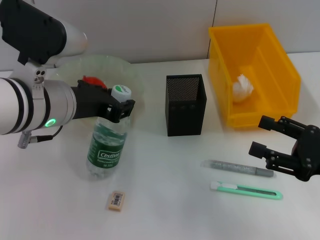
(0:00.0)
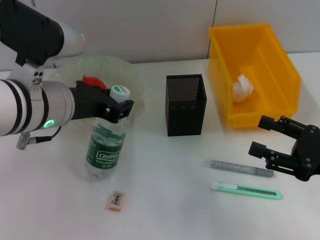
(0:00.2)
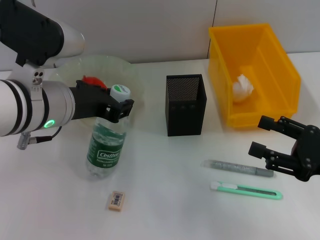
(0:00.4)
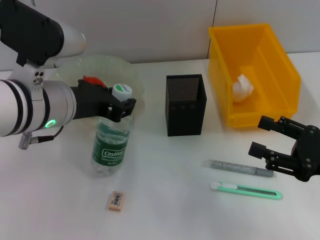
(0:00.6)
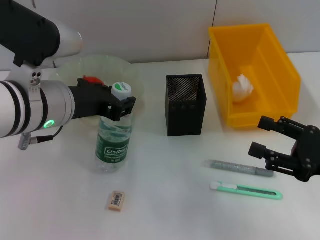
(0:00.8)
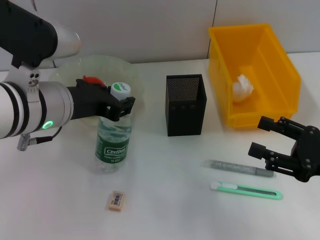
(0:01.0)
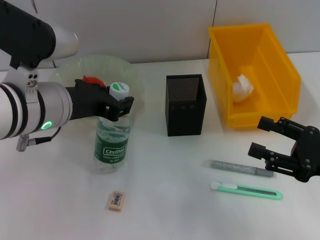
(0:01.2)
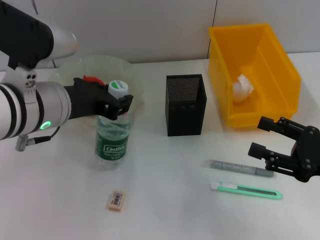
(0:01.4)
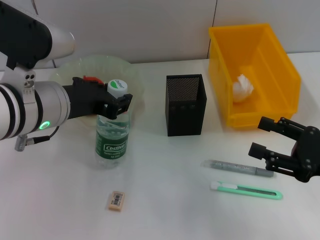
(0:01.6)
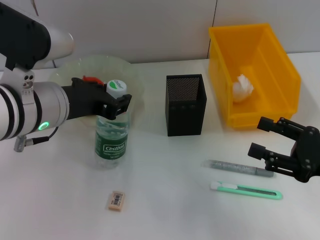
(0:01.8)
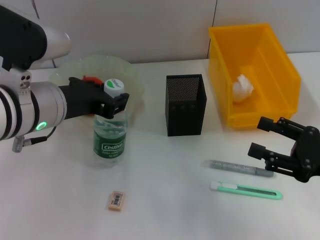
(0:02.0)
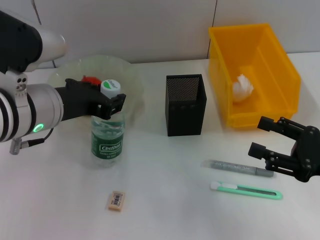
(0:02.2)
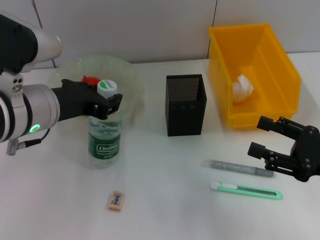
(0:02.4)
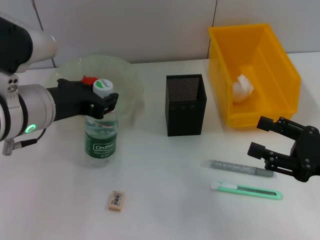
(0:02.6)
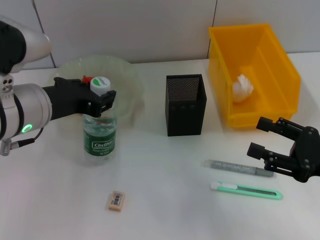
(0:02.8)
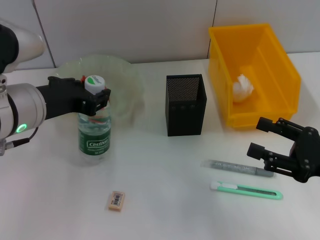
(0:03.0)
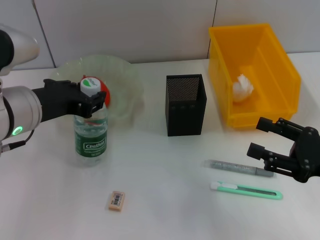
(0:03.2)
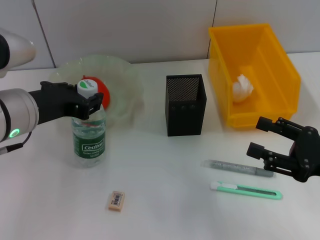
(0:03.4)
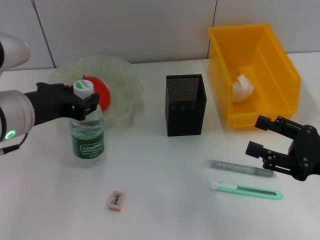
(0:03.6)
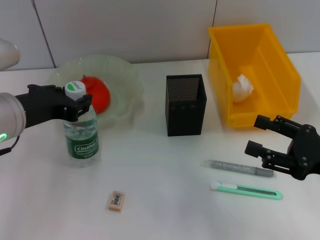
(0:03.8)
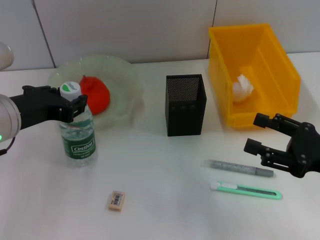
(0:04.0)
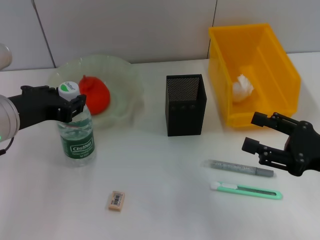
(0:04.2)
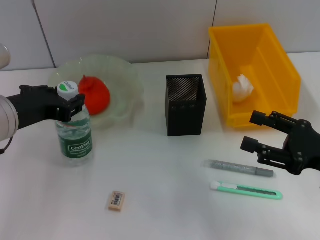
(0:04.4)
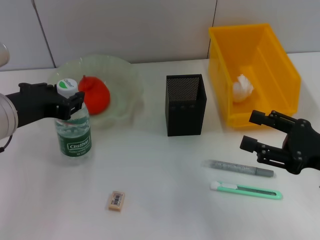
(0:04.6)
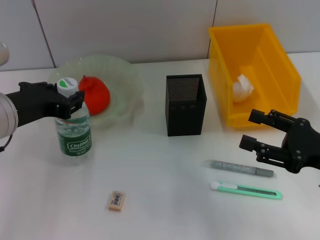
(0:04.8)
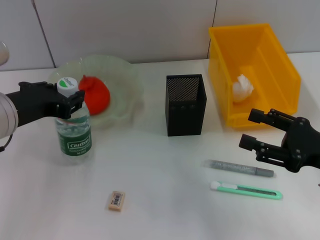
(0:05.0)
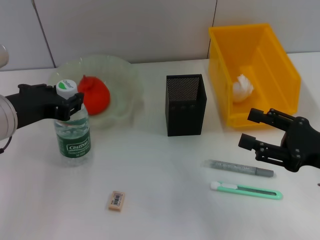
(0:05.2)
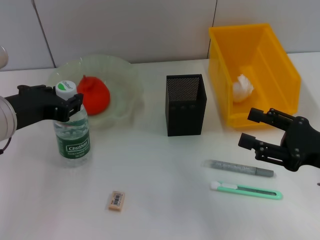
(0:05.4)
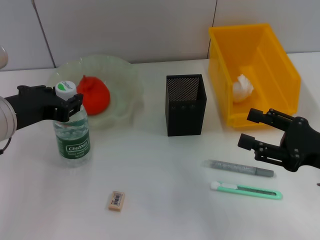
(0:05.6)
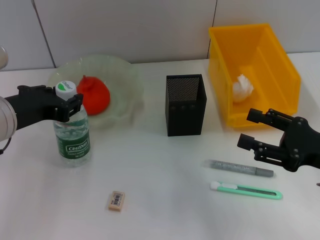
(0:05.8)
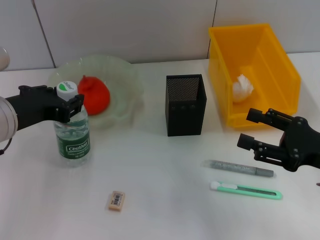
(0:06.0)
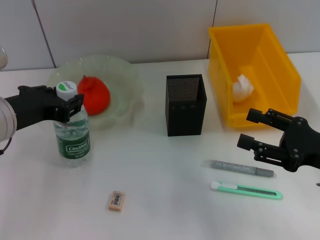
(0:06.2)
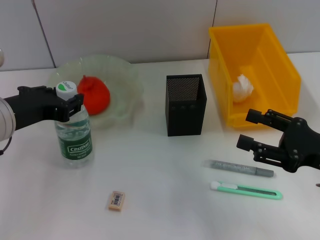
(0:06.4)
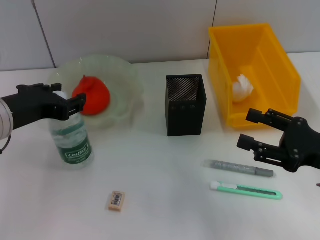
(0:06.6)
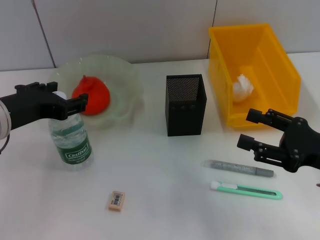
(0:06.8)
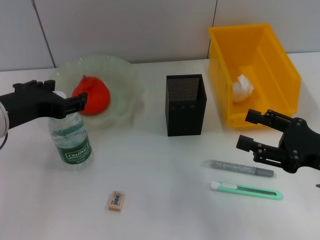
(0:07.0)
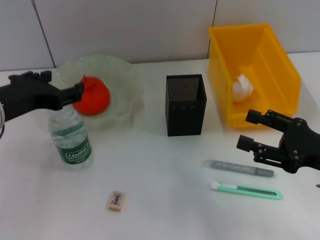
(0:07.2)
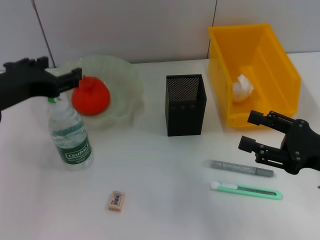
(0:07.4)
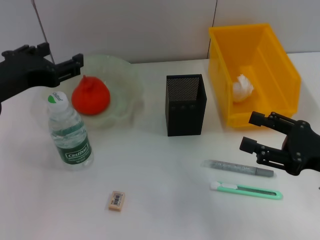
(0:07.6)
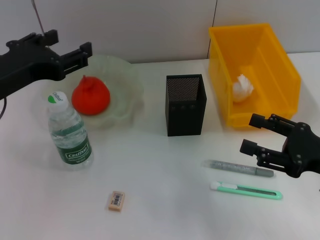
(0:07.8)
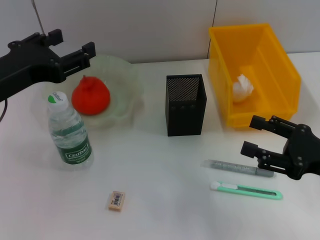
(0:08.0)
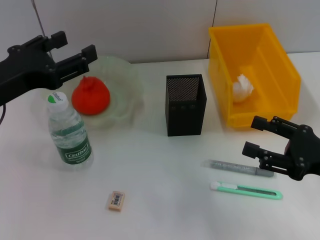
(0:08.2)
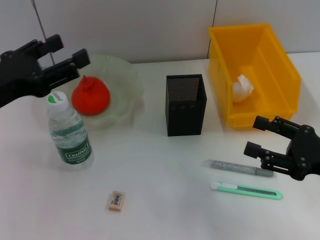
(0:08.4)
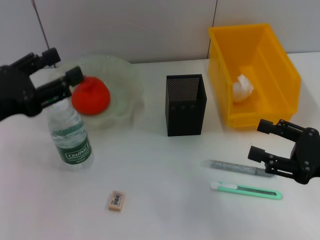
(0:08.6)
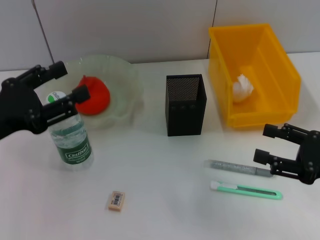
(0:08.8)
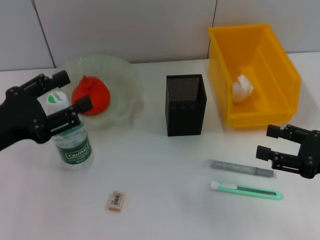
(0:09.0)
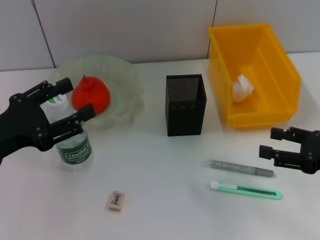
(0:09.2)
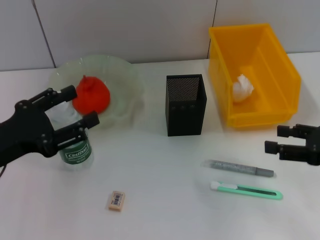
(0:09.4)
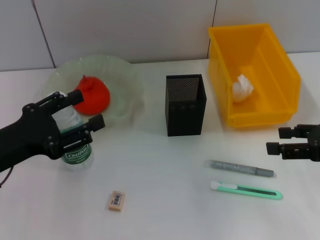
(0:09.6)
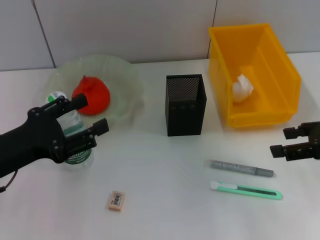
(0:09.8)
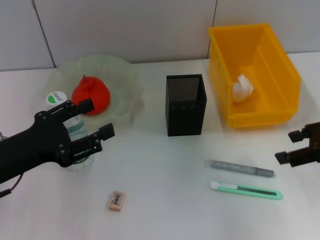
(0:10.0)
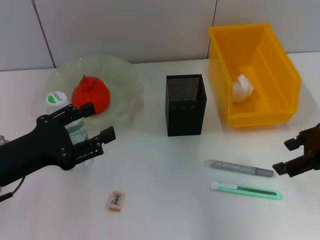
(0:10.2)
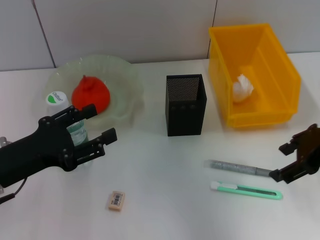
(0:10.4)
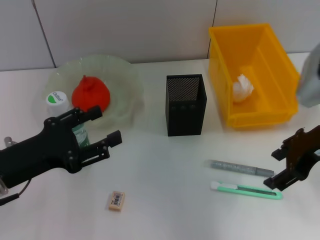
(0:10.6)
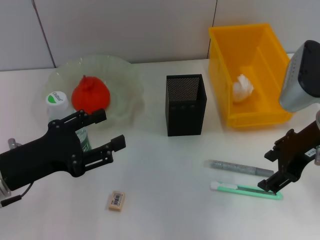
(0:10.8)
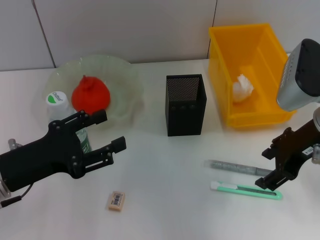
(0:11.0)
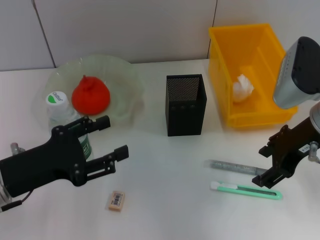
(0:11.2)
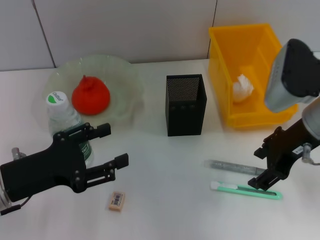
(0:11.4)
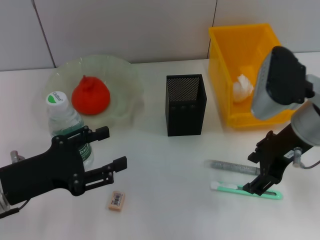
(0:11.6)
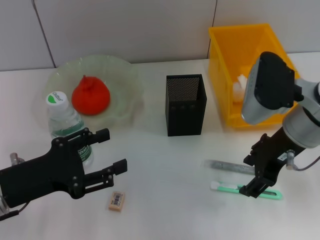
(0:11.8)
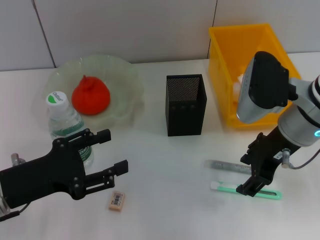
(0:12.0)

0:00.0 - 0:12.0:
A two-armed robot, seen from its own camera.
Step, 0:00.0 - 0:06.8: Place the water bottle on the table with the left hand.
0:00.0 - 0:01.6: Both grippers stay about where they are.
0:01.6 - 0:04.4: The grippers make only small movements.
0:04.4 - 0:06.0: The two grippers keep their place.
0:06.0 - 0:07.6: The left gripper opens its fingers.
0:07.6 - 0:09.0: The left gripper moves downward, some 5 cm.
0:09.0 - 0:10.4: The right gripper shifts some 15 cm upward, forward and to the left.
0:10.4 - 0:12.0: The right gripper travels to the left by approximately 10 cm.

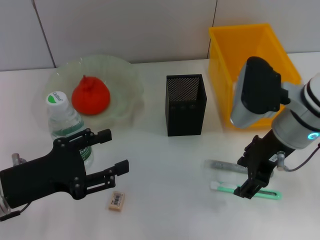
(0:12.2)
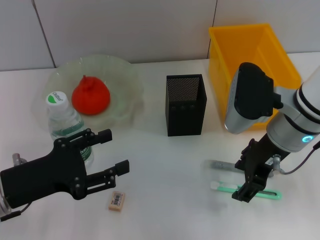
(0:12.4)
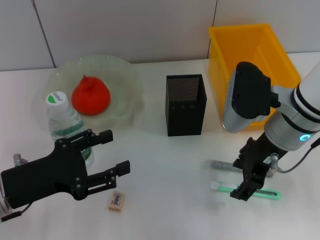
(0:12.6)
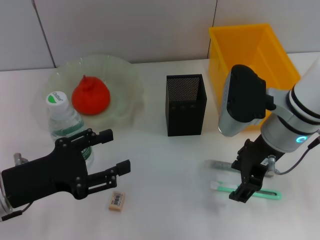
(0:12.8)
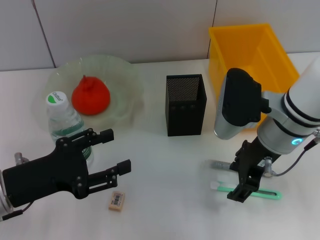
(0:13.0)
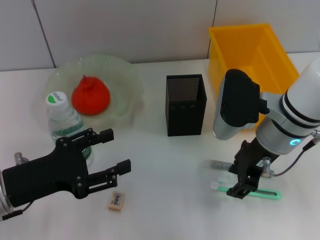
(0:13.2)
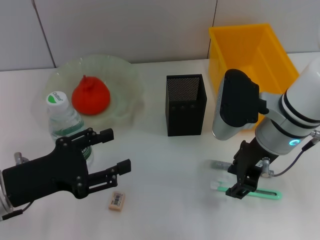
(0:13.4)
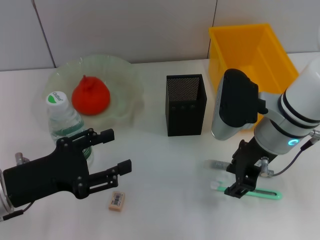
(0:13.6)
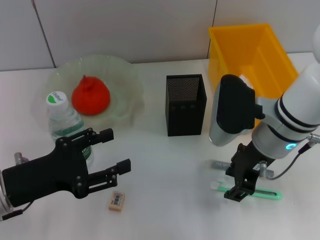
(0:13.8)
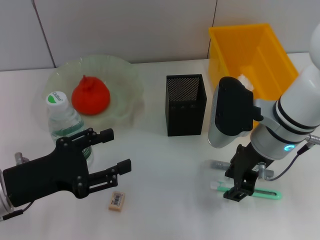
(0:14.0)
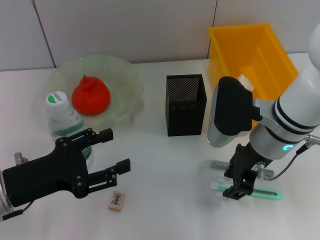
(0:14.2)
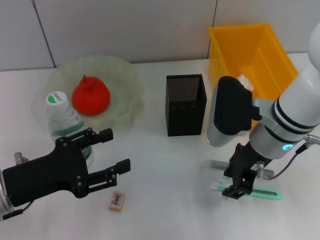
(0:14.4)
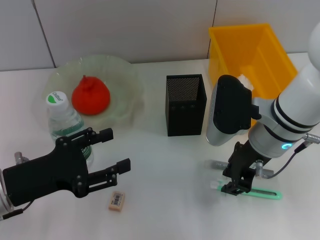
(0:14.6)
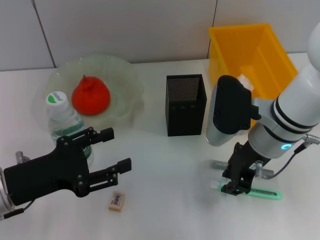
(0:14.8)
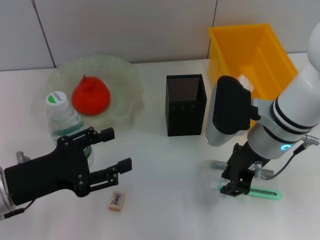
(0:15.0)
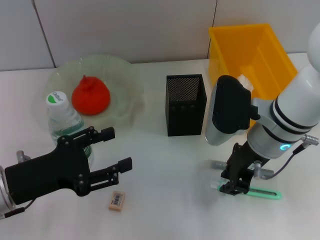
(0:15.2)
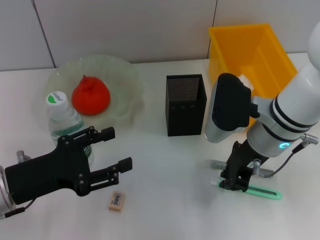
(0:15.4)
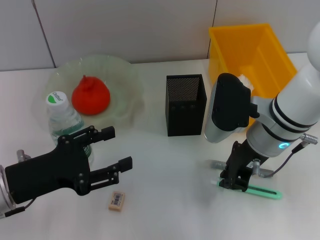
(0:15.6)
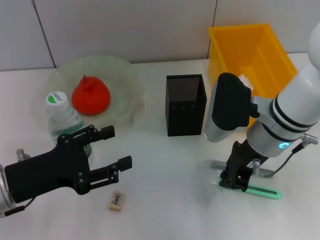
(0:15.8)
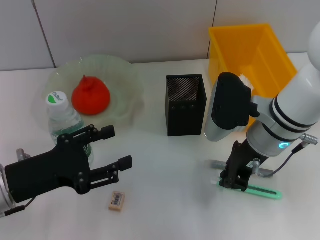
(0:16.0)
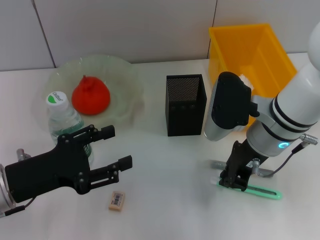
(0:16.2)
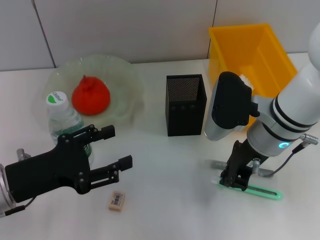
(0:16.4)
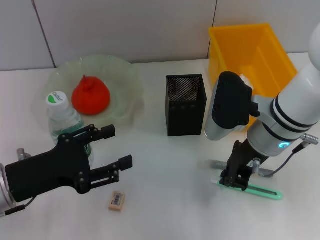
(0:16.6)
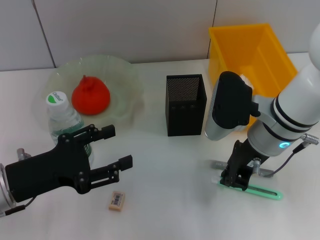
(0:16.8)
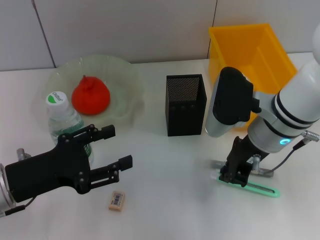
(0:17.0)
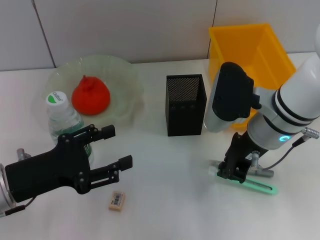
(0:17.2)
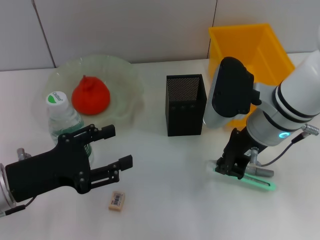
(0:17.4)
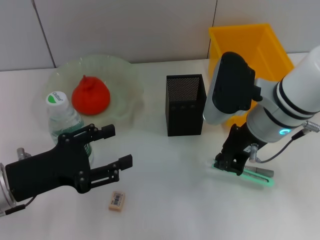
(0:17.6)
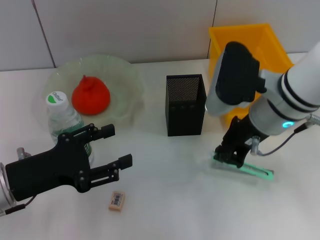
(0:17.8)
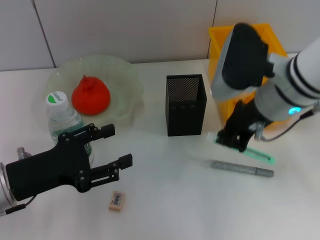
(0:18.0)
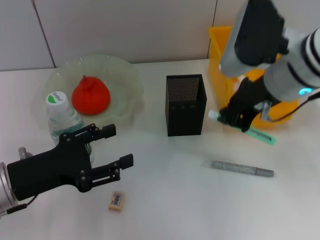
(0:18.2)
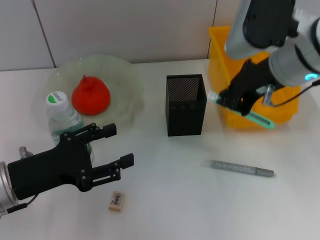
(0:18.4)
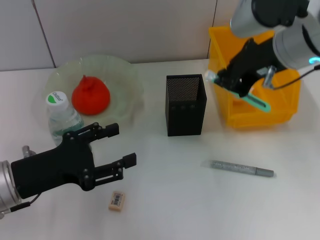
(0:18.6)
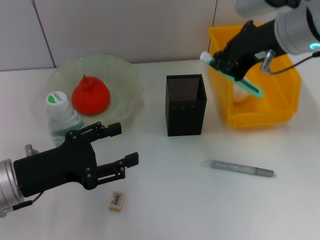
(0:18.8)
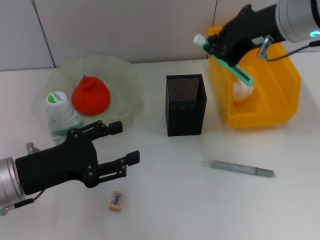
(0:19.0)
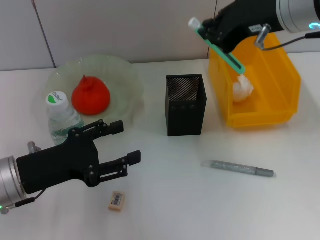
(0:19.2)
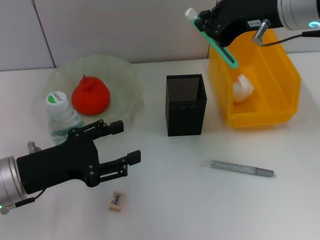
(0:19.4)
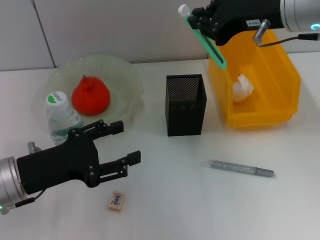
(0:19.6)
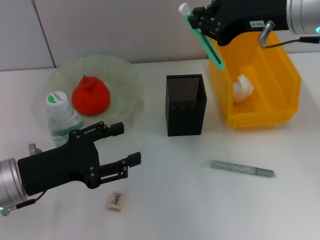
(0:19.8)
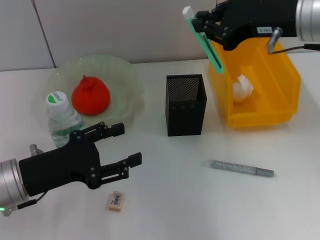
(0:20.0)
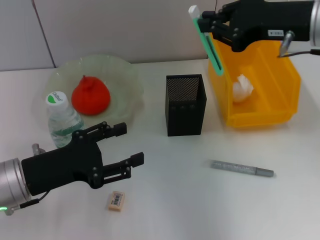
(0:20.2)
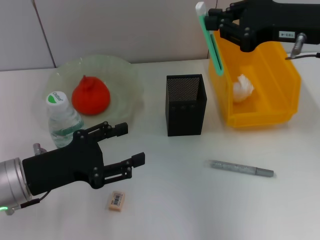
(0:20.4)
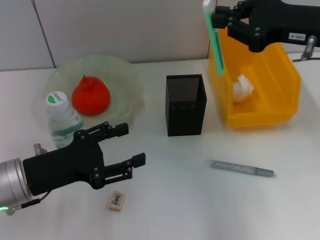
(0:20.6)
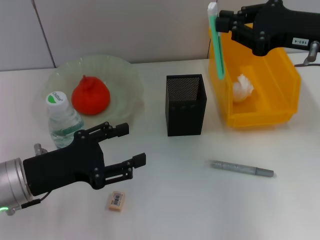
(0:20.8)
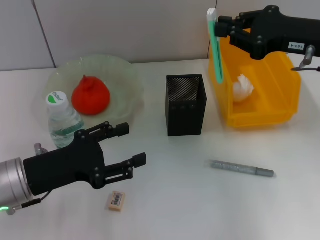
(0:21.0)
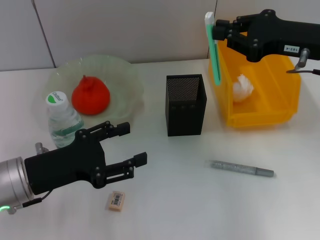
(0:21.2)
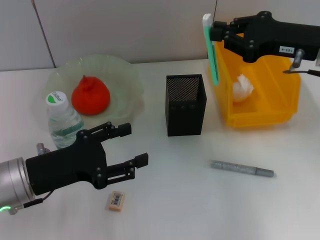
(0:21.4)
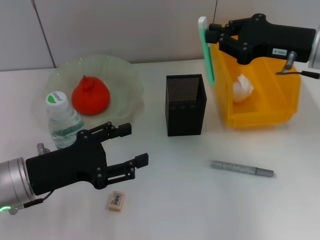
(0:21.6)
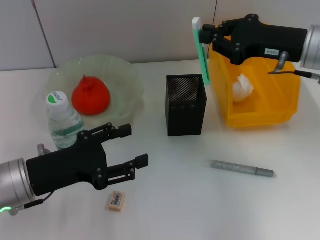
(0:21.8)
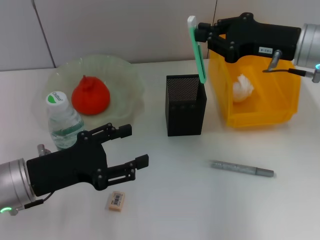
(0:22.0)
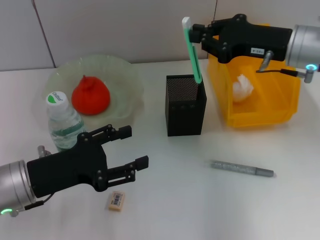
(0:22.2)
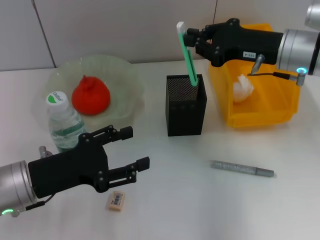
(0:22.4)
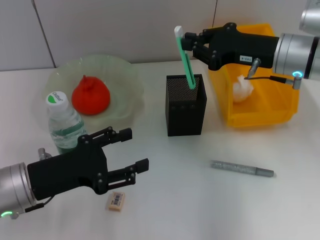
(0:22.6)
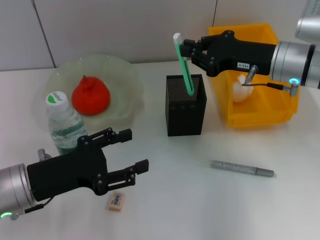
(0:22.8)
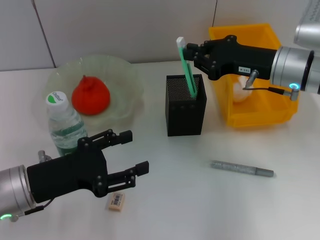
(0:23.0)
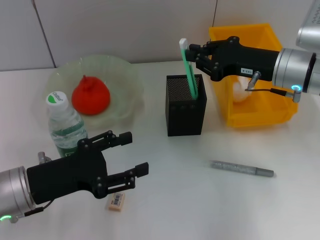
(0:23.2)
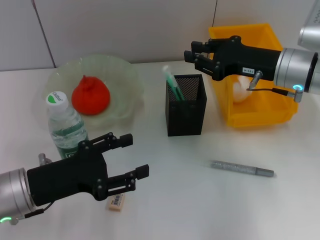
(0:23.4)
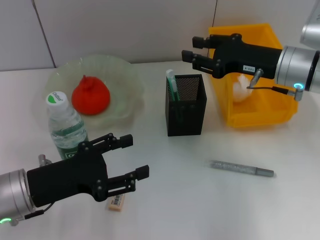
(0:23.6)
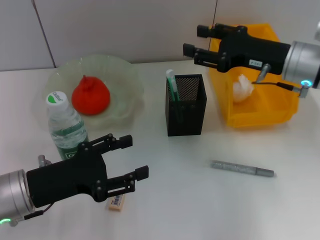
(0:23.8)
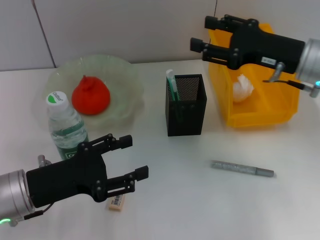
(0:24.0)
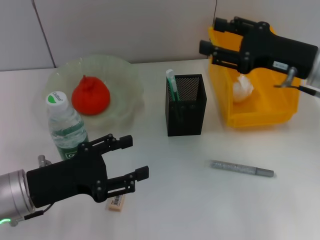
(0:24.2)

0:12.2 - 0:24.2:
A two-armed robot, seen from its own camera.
Step, 0:12.2 - 0:16.8: Grab the blue utility knife with the right hand.
Step, 0:17.0 - 0:23.4: Place the blue utility knife into the pen holder with the right hand.
0:12.2 - 0:13.8: There are only small adjustments of the grippers.
0:13.8 - 0:15.2: The right gripper closes its fingers.
0:15.2 - 0:16.6: Neither gripper changes place.
0:16.6 - 0:18.2: The right gripper shifts about 10 cm upward.
0:18.2 - 0:19.8: The right gripper travels upward by roughly 5 cm.
0:19.8 - 0:21.2: The right gripper moves to the right and downward, roughly 10 cm.
0:21.2 - 0:22.6: The right gripper shifts by some 5 cm.
0:22.6 - 0:24.2: The right gripper moves approximately 5 cm, and opens its fingers.
